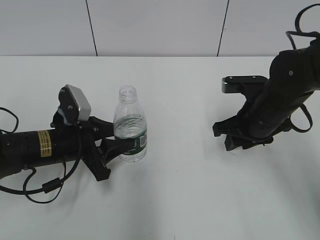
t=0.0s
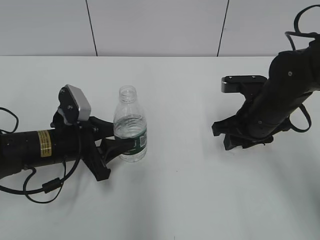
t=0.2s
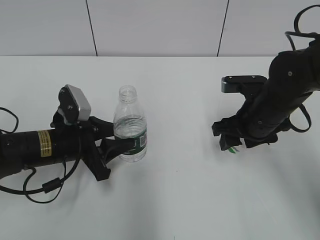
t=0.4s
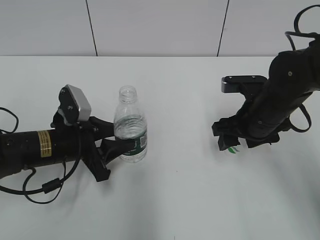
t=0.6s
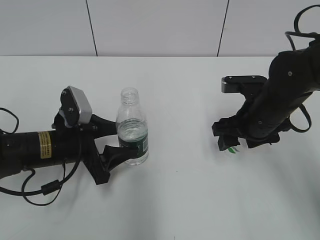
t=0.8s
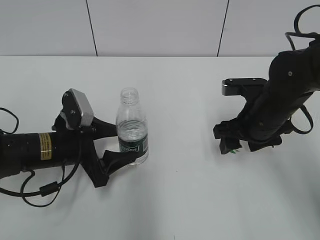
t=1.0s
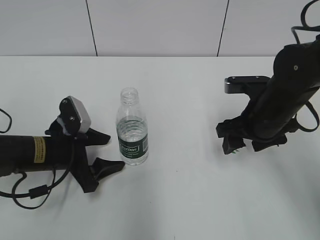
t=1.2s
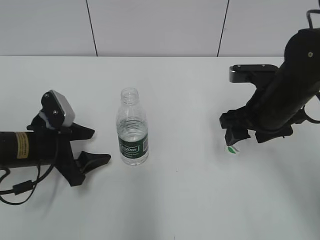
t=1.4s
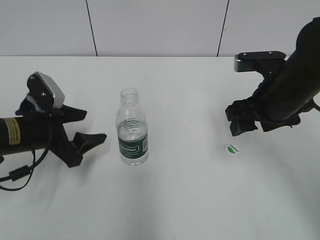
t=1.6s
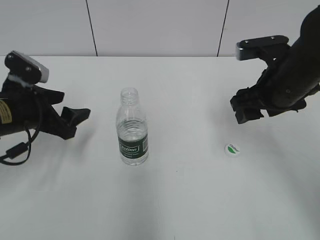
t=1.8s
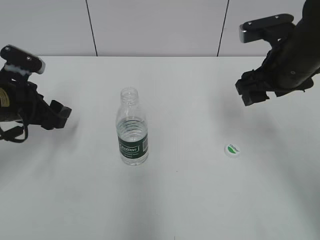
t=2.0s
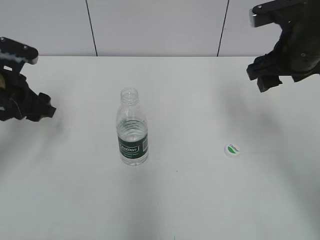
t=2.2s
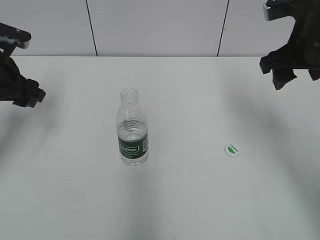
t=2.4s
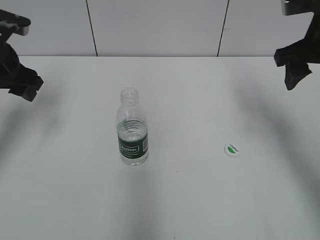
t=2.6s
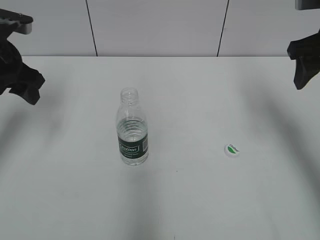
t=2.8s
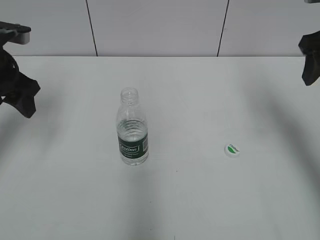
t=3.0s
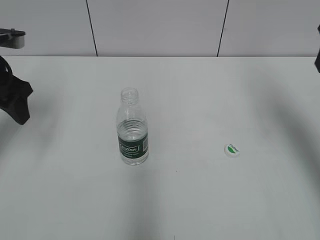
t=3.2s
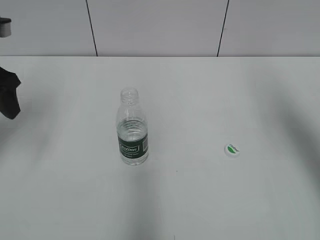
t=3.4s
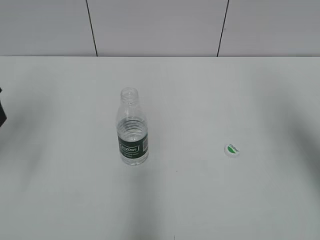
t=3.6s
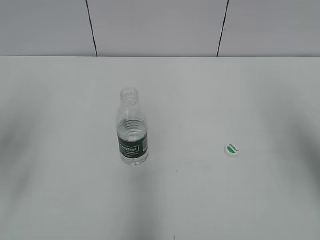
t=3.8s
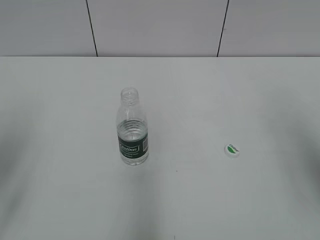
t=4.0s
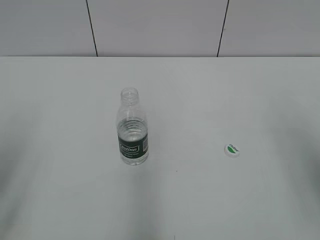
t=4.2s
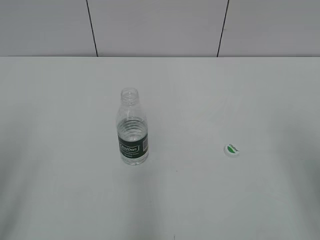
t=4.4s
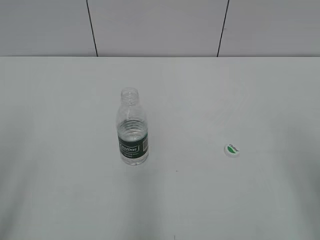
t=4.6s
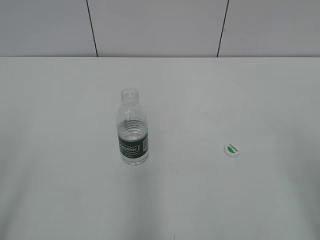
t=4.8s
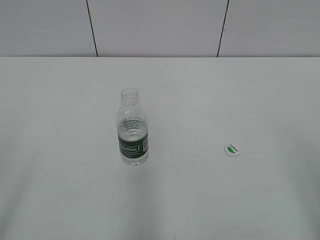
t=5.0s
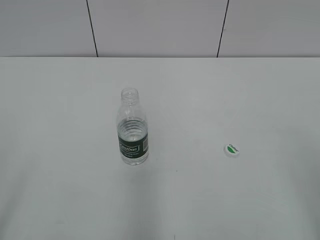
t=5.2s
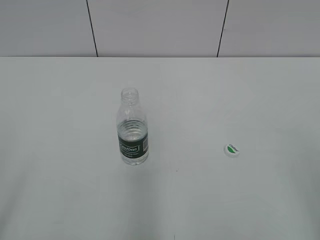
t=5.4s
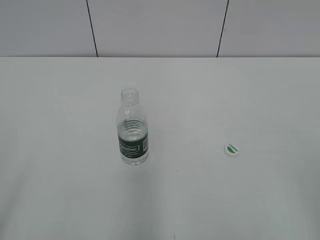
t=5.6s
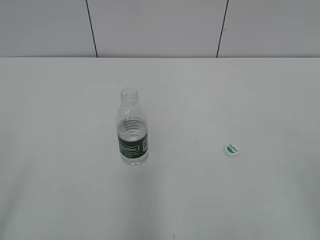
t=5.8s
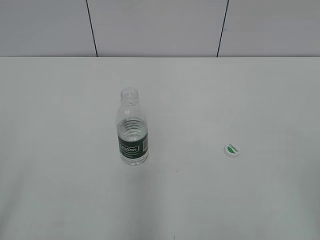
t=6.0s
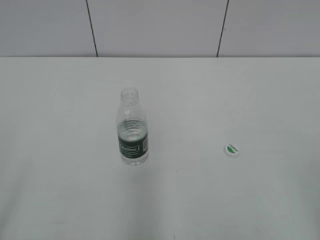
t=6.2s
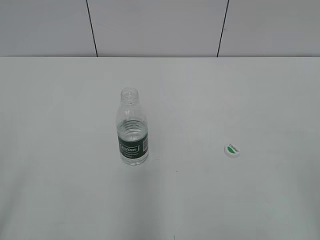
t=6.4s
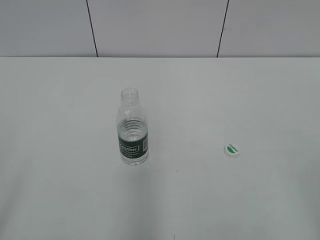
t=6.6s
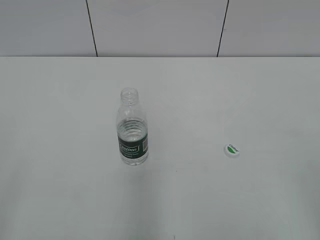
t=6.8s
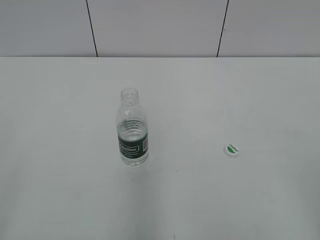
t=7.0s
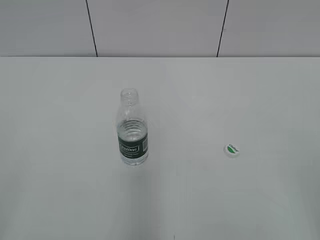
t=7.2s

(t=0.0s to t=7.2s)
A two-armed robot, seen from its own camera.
Step, t=0.6s - t=1.2s: Place the bottle on the table with the left gripper.
t=0.0s - t=1.4s: The left gripper opens up; the right gripper opens its fingers.
t=1.4s - t=2.8s: The left gripper moves upward, forward and to the left, about 20 cm, while the right gripper is displaced upward and to the right by about 15 cm.
t=2.8s - t=4.4s: The two grippers go roughly 25 cm backward.
